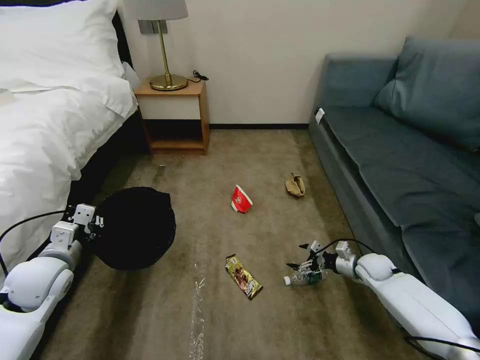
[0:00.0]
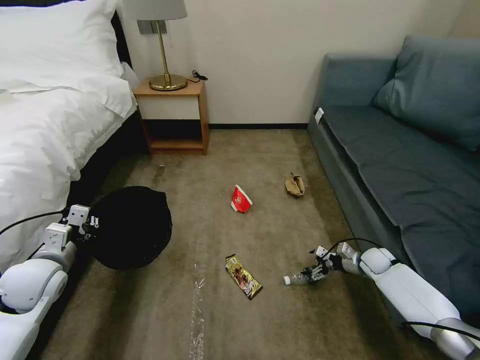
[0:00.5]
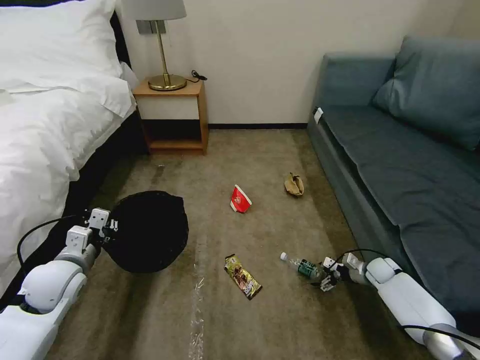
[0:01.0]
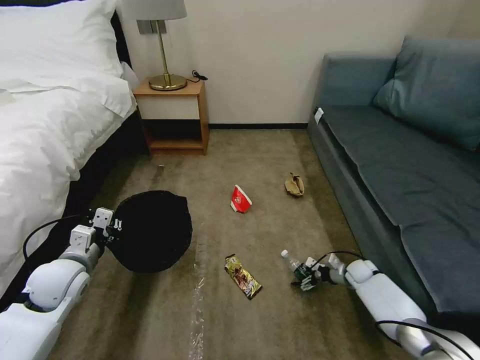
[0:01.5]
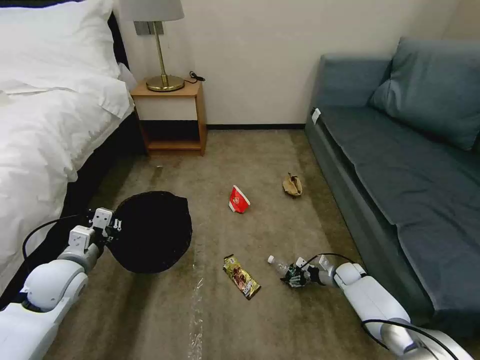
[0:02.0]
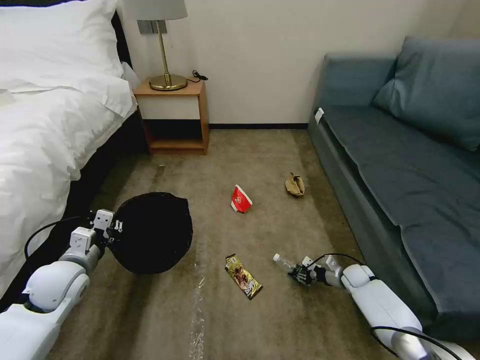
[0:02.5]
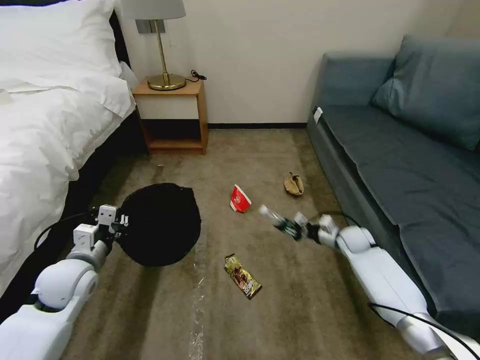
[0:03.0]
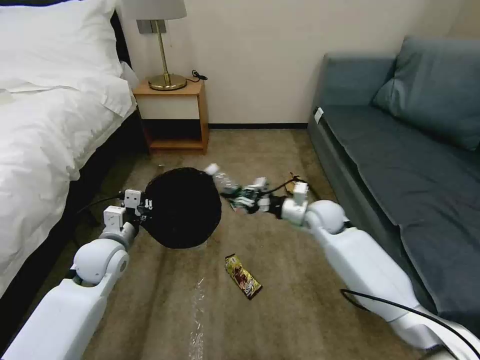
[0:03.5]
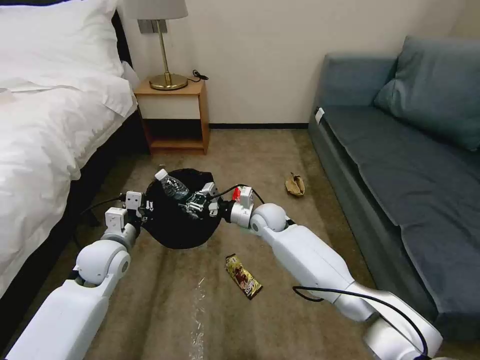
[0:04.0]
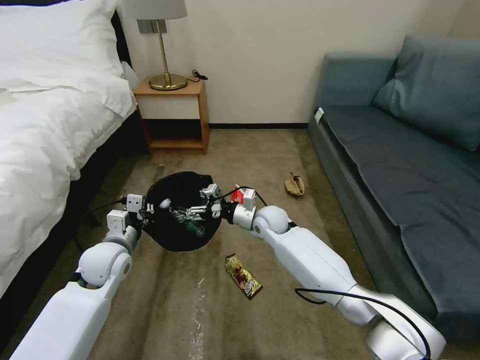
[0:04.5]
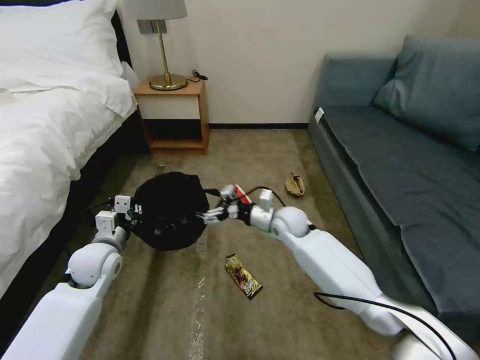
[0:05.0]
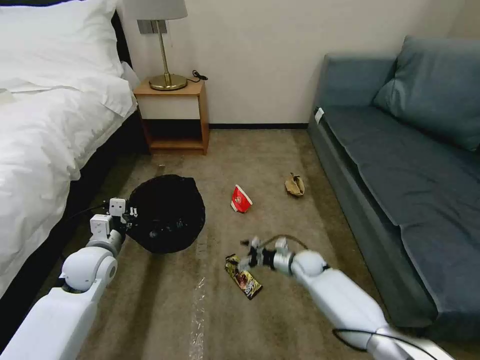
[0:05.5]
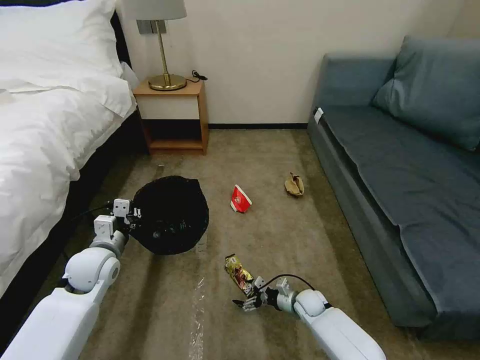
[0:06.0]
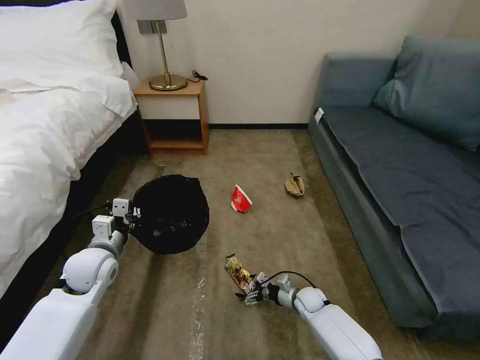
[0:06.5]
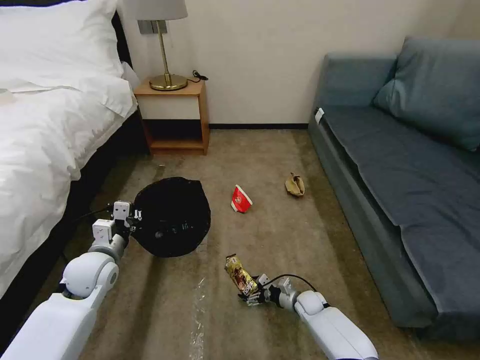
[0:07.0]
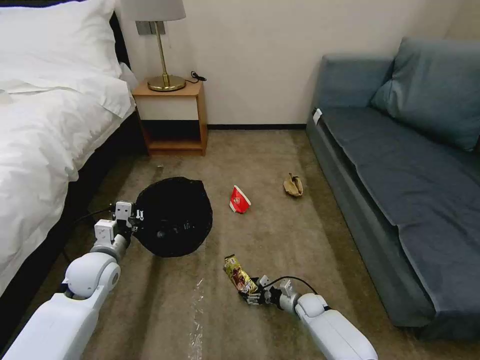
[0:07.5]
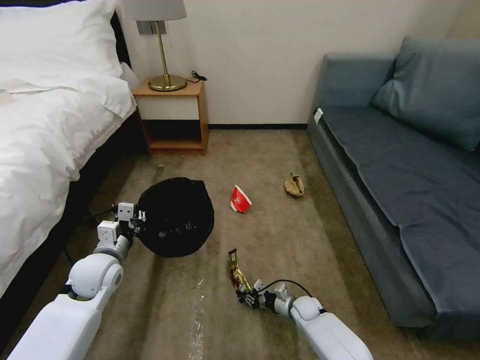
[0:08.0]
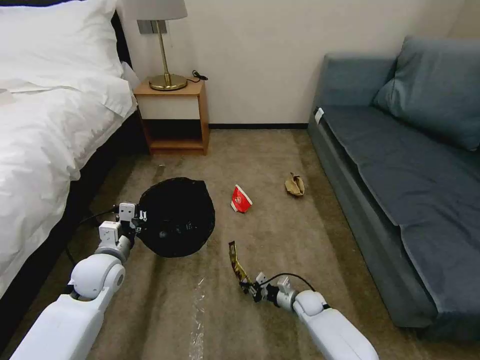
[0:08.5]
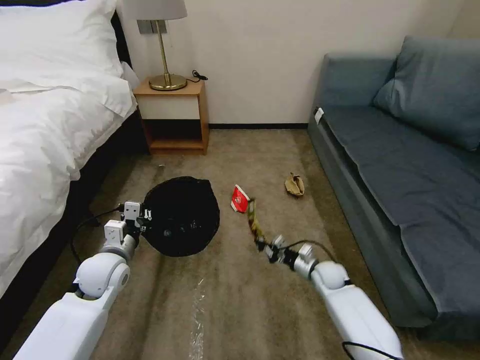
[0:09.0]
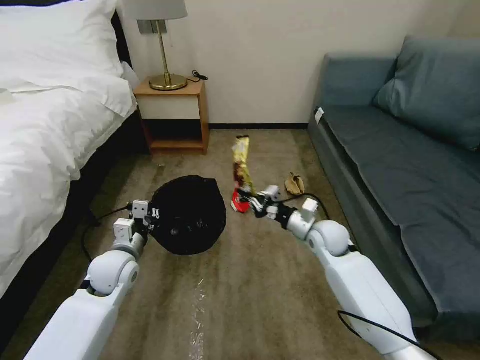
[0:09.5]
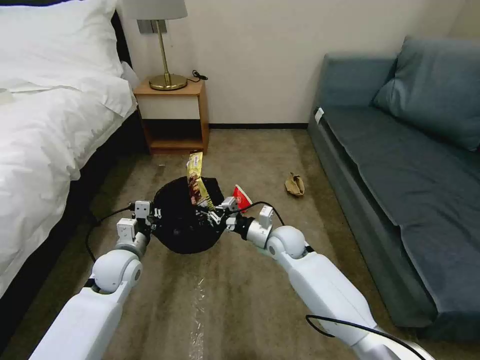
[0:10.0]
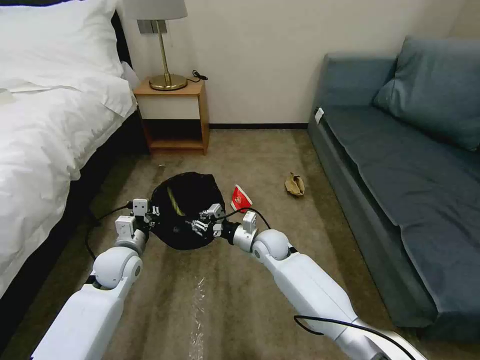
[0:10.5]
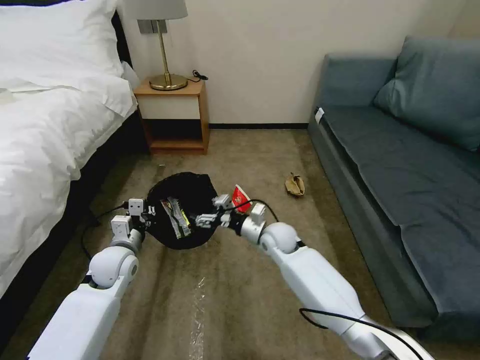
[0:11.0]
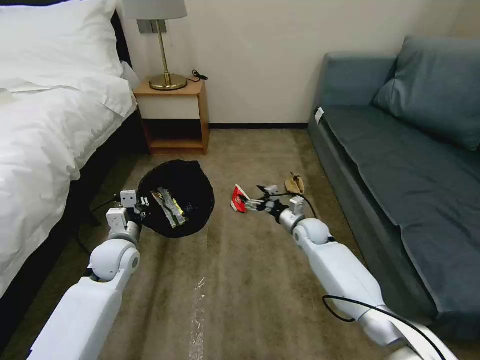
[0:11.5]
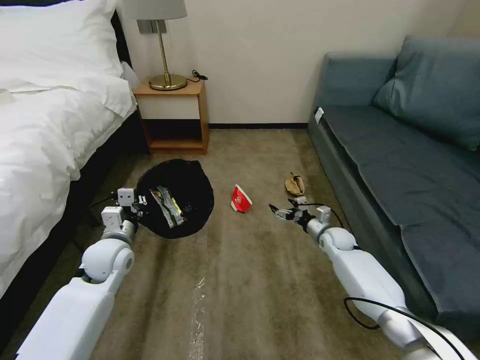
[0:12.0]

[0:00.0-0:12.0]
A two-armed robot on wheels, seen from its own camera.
Task of the whole recording: Pick up the trash bin, then pick up the garbage on the floor and place it into the trash bin.
0:00.0 to 0:02.0: The right gripper shifts about 10 cm downward.
0:02.0 to 0:04.0: The left gripper heads to the right, covering some 10 cm. The right gripper heads to the left and upward, covering about 35 cm, and closes.
0:04.0 to 0:06.0: The right gripper heads downward, to the right and backward, covering approximately 30 cm, and opens its fingers.
0:06.0 to 0:08.0: The right gripper ends up some 5 cm from where it was, and closes.
0:08.0 to 0:10.0: The right gripper moves upward, some 25 cm.
0:10.0 to 0:12.0: The right gripper shifts roughly 20 cm to the right and downward, and opens up.

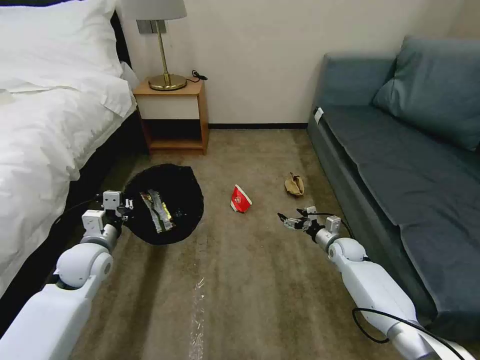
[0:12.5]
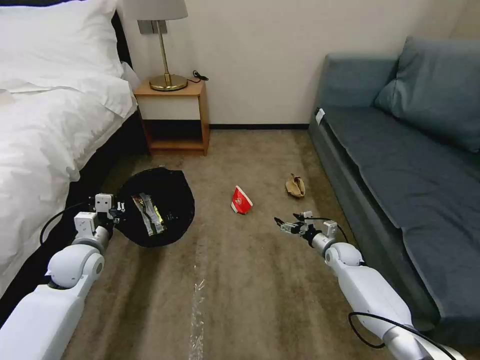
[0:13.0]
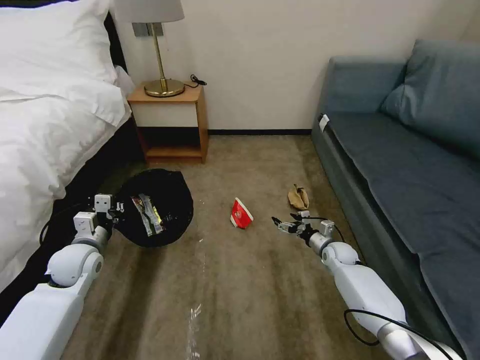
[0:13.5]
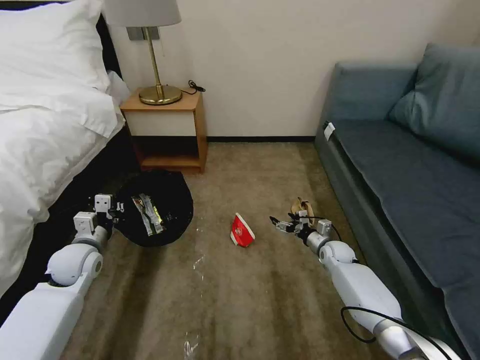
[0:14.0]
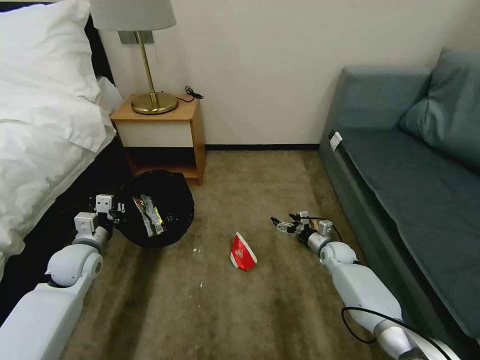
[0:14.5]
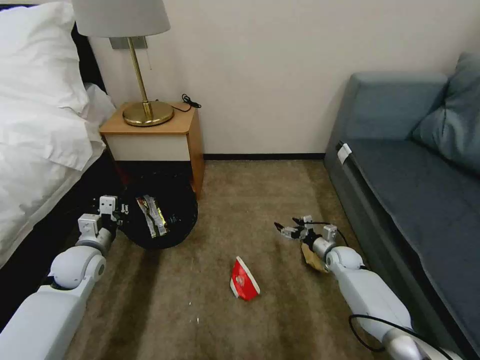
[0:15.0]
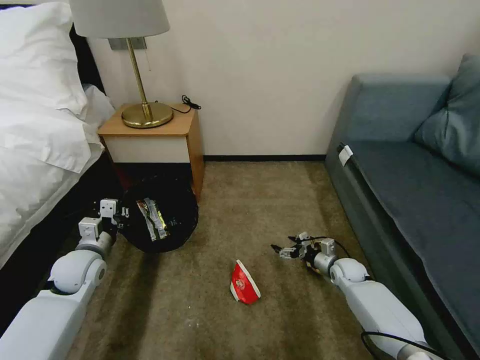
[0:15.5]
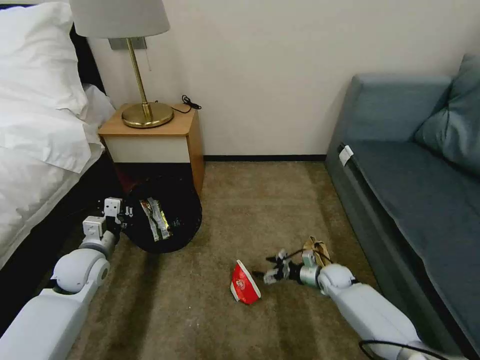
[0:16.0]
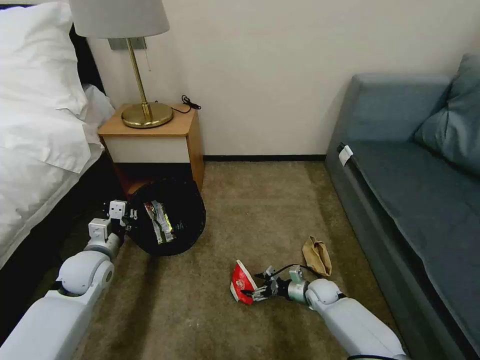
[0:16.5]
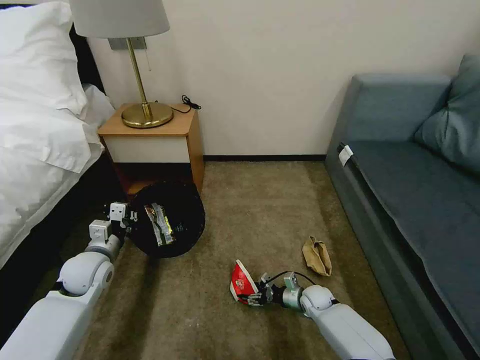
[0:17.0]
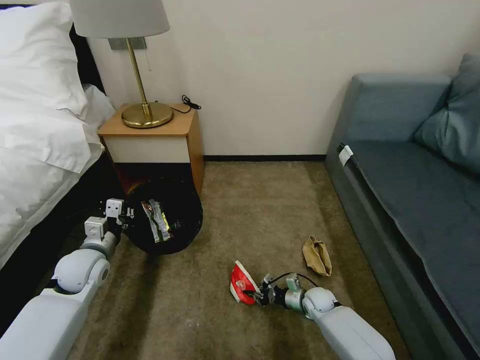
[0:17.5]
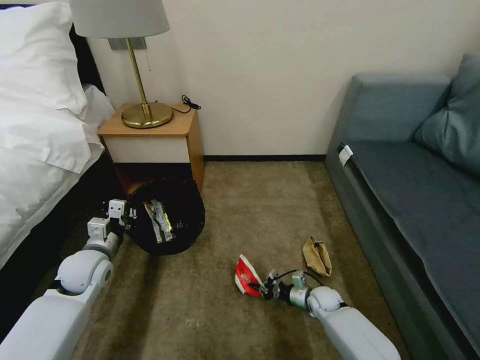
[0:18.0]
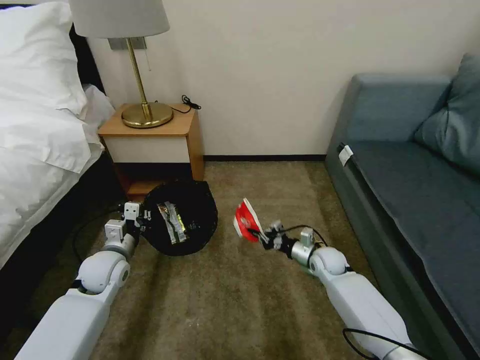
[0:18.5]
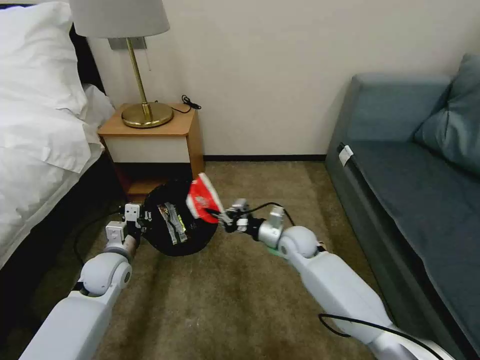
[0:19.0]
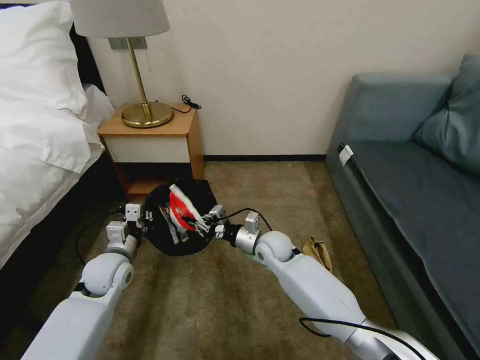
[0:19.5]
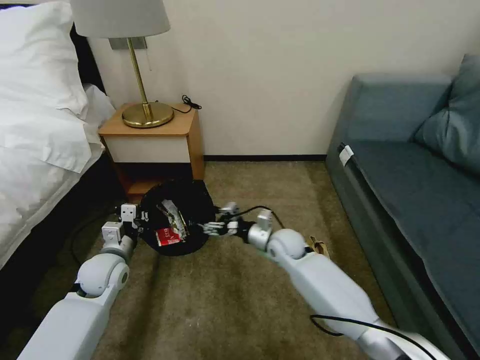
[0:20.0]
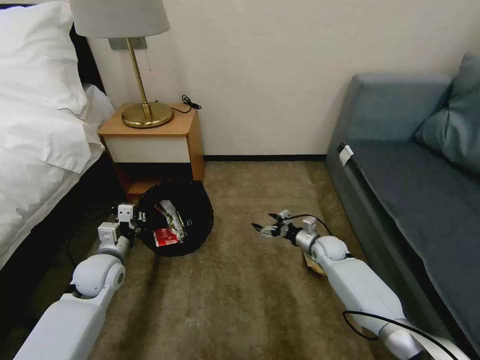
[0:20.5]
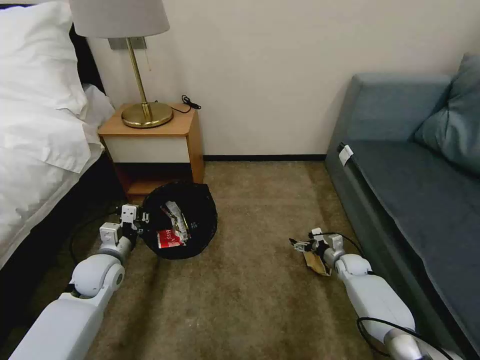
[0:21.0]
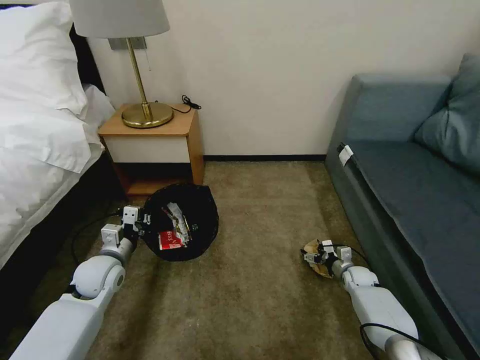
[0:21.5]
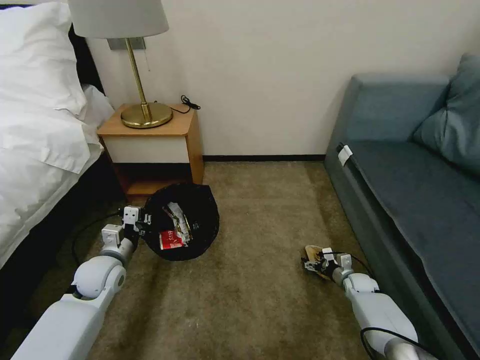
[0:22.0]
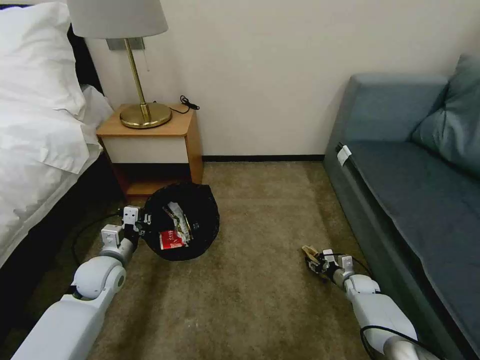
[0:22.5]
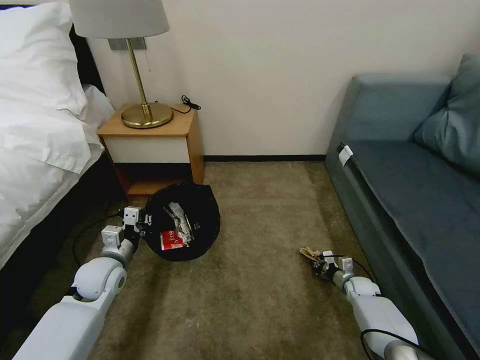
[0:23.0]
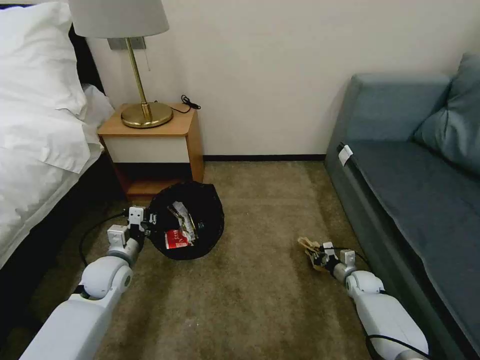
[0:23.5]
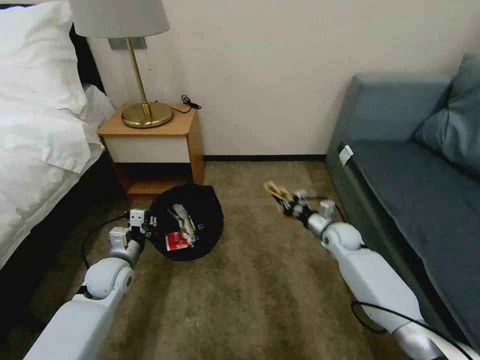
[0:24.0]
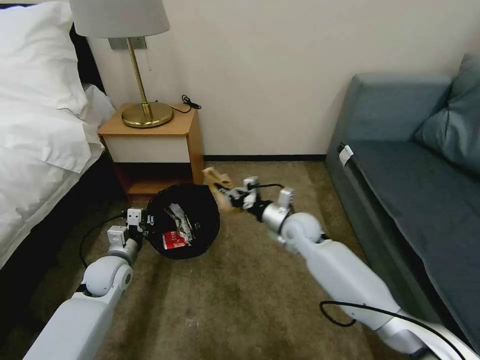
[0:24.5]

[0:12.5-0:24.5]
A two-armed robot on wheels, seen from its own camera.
Task of the whole recording: Pick up the trash bin, then pick up the garbage on the floor and place it into the trash bin.
0:14.5 to 0:16.5: The right gripper is displaced backward, downward and to the left by roughly 15 cm.
0:16.5 to 0:18.5: The right gripper heads upward and forward, covering about 10 cm, and closes its fingers.
0:18.5 to 0:20.5: The right gripper travels to the left and back again, roughly 15 cm each way, and opens its fingers.
0:20.5 to 0:22.5: The right gripper travels to the right, downward and backward by some 20 cm, and closes its fingers.
0:22.5 to 0:24.5: The right gripper travels upward and to the left by roughly 35 cm, and closes.

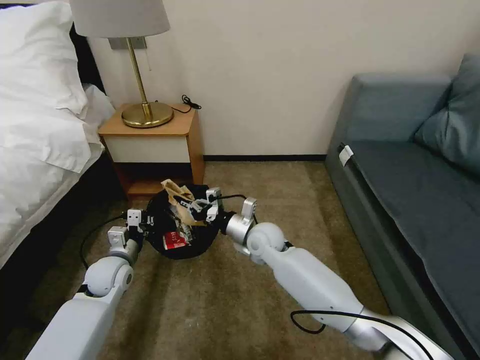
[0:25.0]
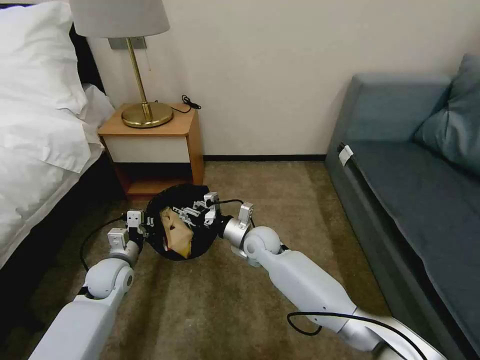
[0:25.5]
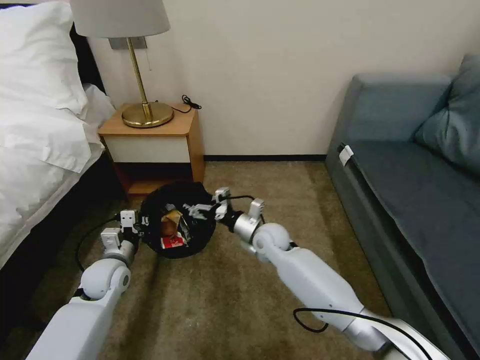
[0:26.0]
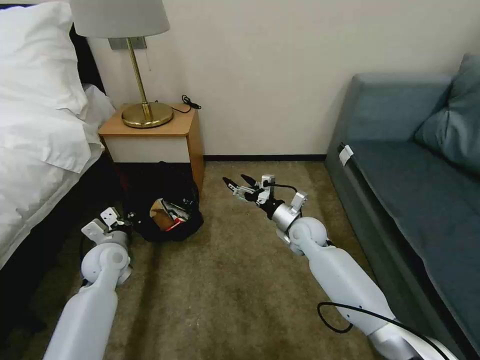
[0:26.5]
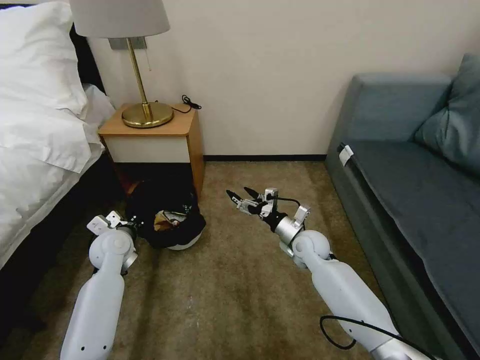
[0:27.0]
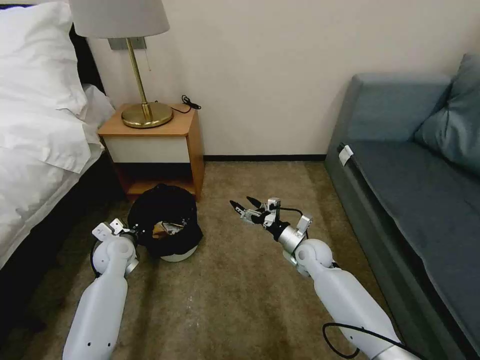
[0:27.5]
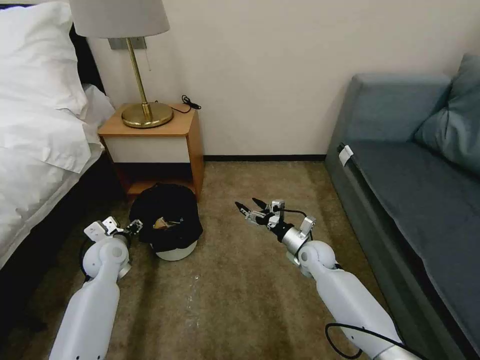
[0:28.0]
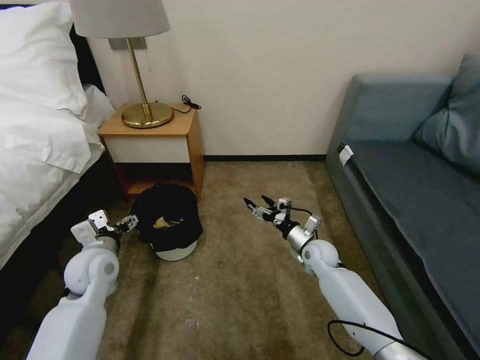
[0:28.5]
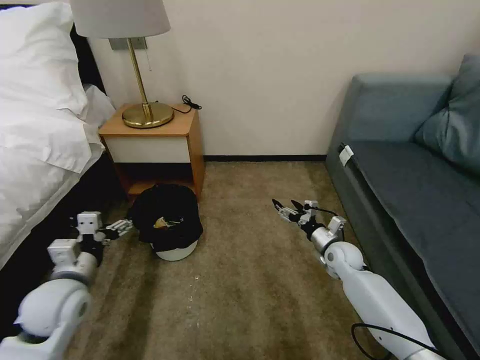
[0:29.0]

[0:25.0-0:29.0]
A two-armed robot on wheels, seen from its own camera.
Task of the whole recording: Pick up the trash bin, then pick up the garbage on the floor and place it into the trash bin.
0:25.0 to 0:27.0: The left gripper ends up approximately 5 cm from where it was; the right gripper heads to the right, covering about 15 cm, and opens.
0:27.0 to 0:29.0: The right gripper moves to the right, about 10 cm. Meanwhile the left gripper goes approximately 15 cm backward, and opens.
